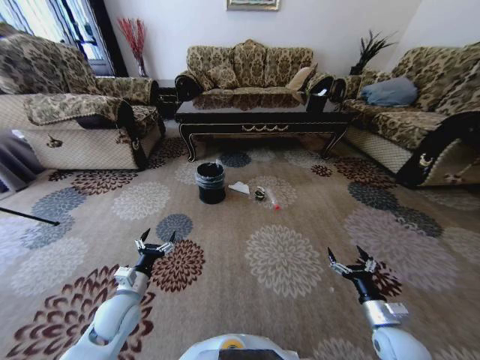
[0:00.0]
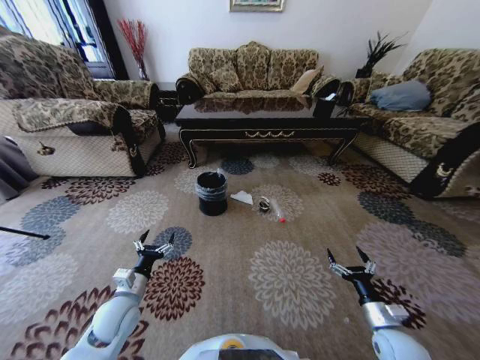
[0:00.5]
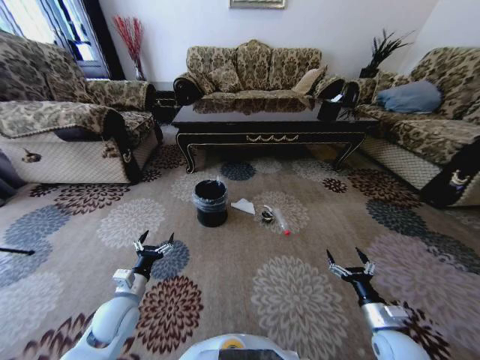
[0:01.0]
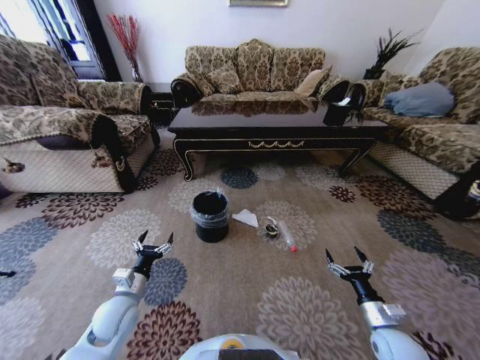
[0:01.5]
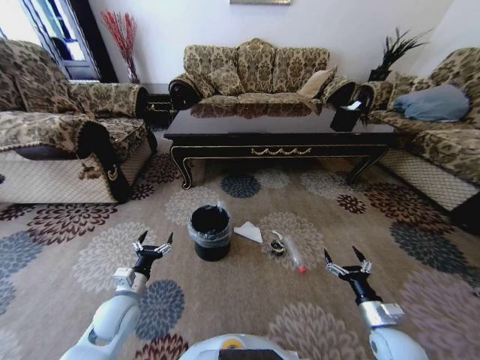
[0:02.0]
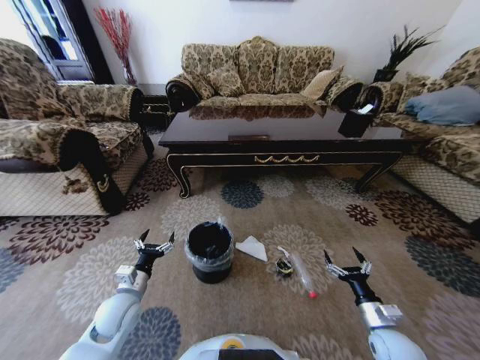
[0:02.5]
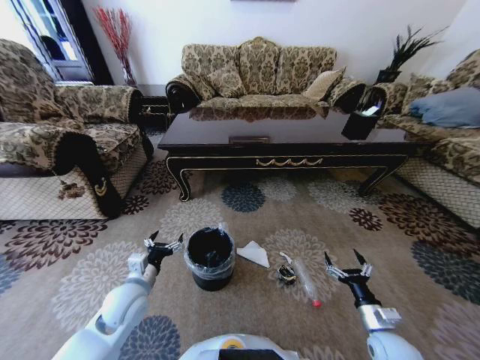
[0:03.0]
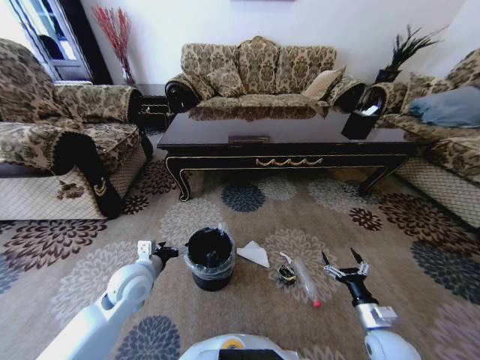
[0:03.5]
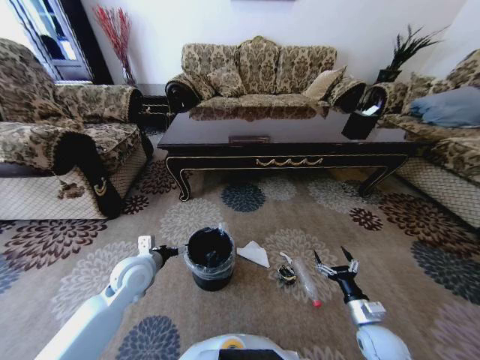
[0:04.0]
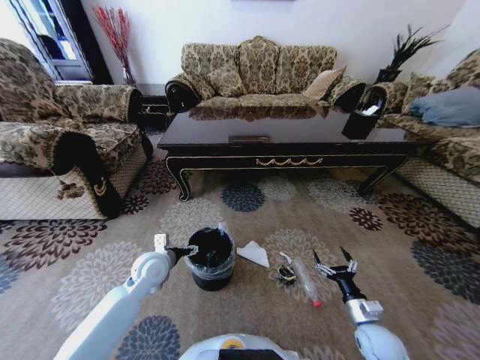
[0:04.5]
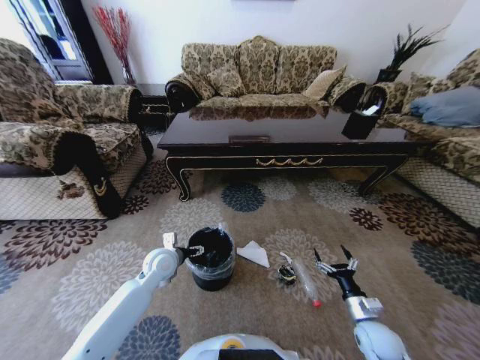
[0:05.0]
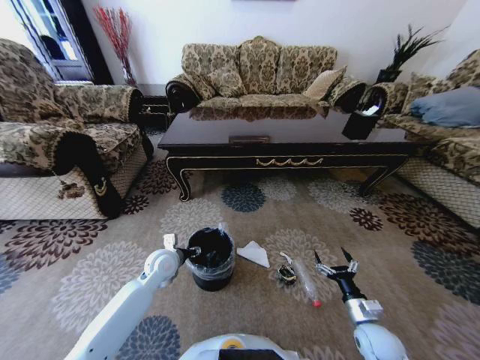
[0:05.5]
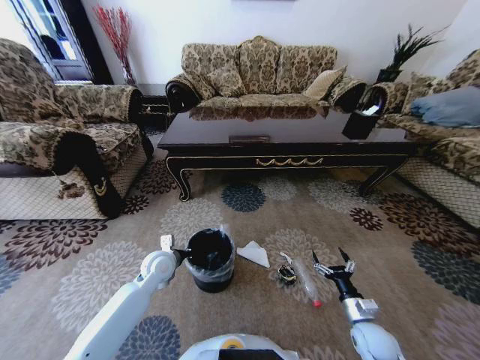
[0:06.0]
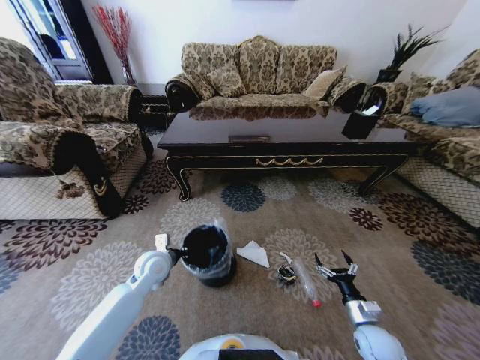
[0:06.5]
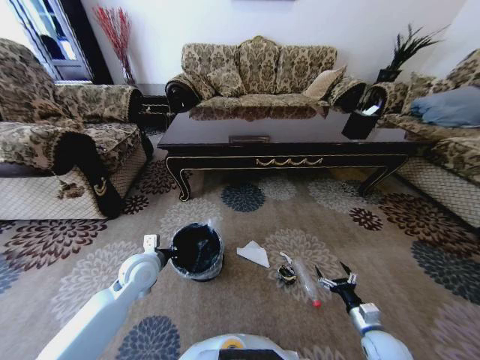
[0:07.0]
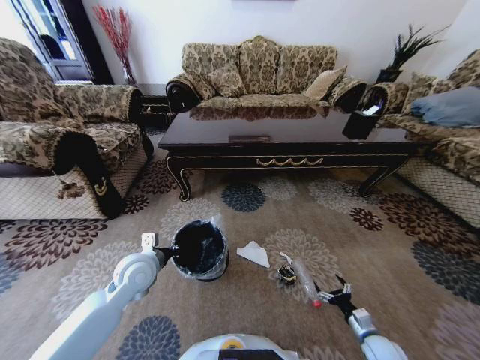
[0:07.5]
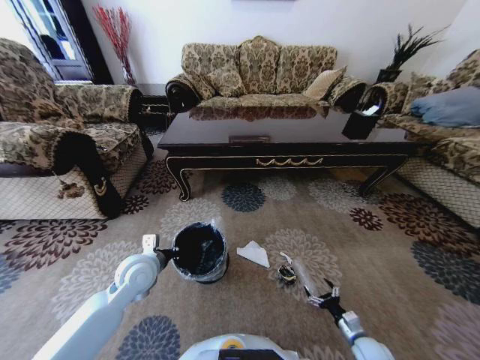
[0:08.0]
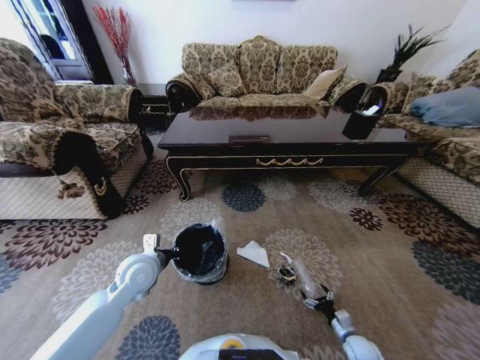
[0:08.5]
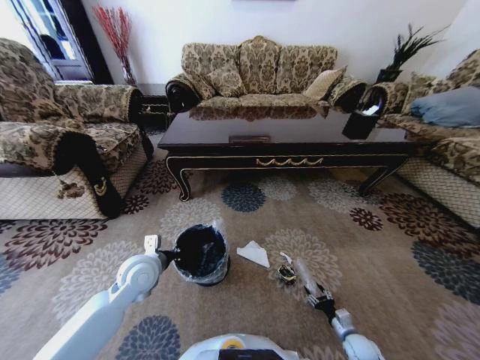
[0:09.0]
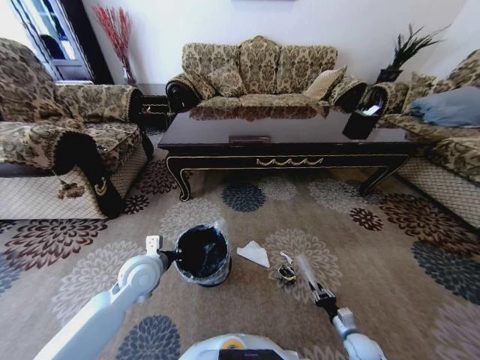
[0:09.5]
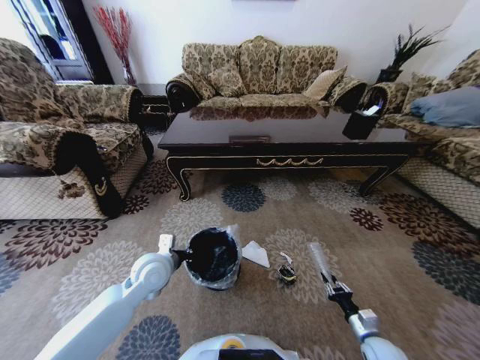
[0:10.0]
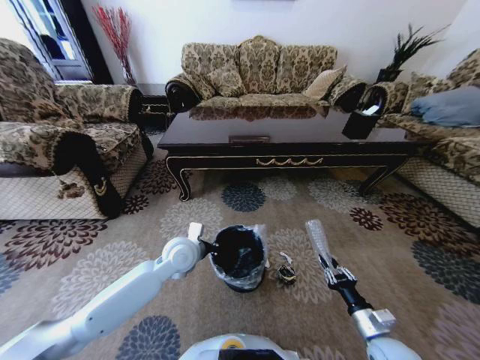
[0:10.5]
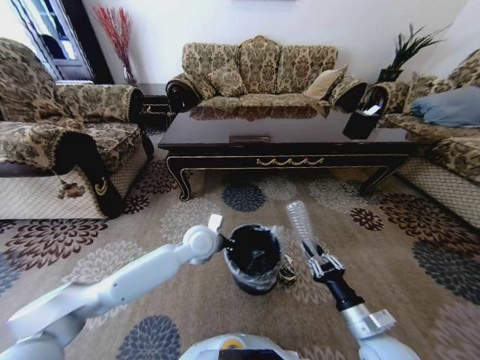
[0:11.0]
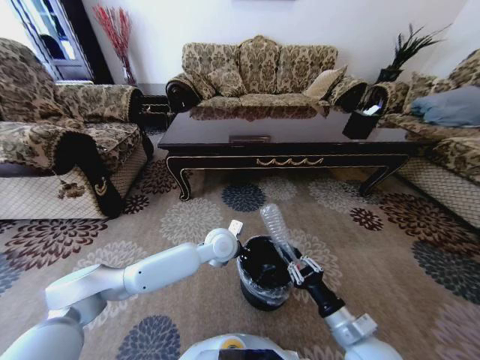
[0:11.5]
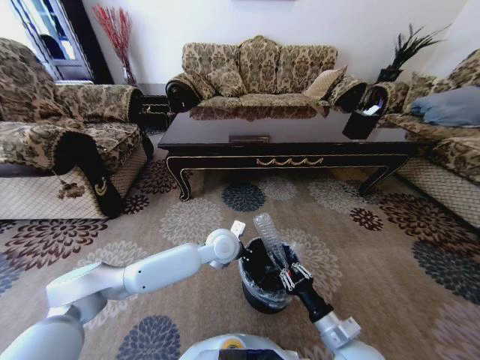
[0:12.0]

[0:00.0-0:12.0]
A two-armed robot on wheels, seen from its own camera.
Task of the whole recording: Move to the front of the table and pick up the trash from the floor, then place it into the trash bin.
0:02.0 to 0:04.0: The left gripper heads upward and forward, covering some 10 cm.
0:04.0 to 0:06.0: The left gripper travels downward by about 5 cm, and closes.
0:06.0 to 0:08.0: The right gripper moves downward, approximately 10 cm. The left gripper travels upward by about 5 cm.
0:08.0 to 0:10.0: The right gripper closes up.
0:10.0 to 0:12.0: The left gripper heads to the right, covering roughly 20 cm, while the right gripper moves to the left and upward, some 20 cm.

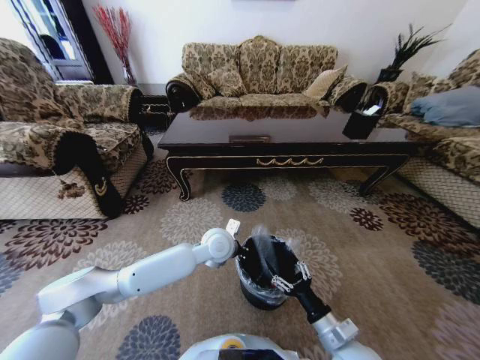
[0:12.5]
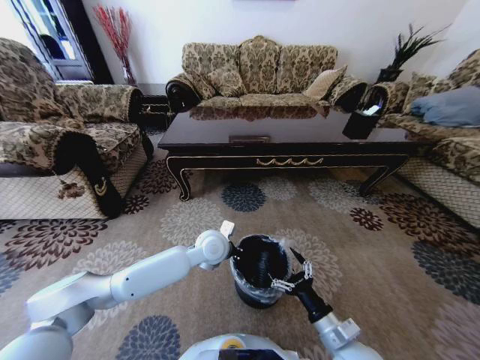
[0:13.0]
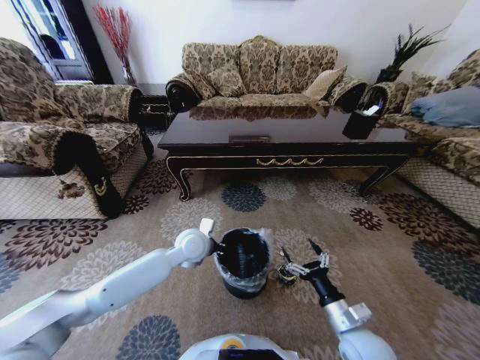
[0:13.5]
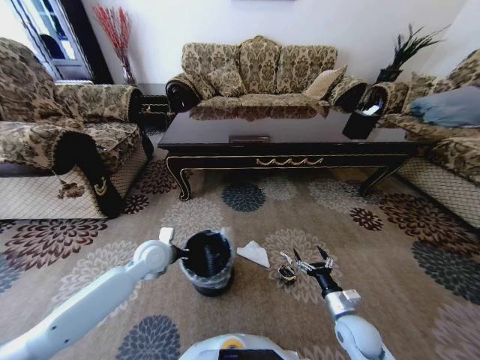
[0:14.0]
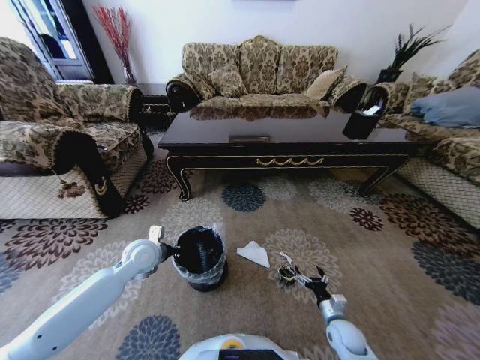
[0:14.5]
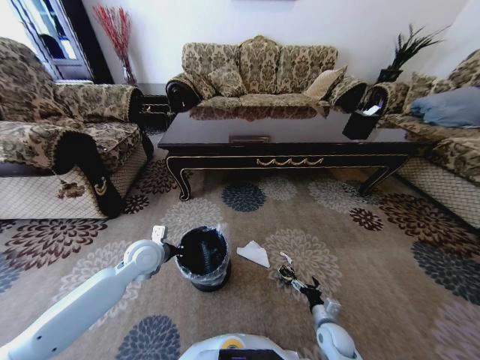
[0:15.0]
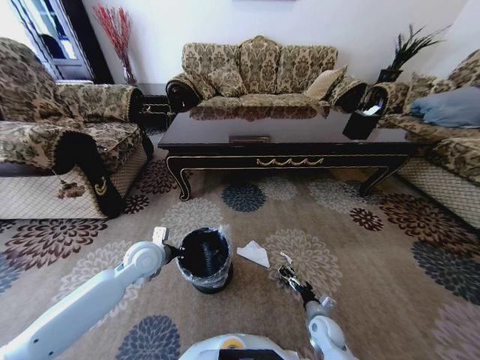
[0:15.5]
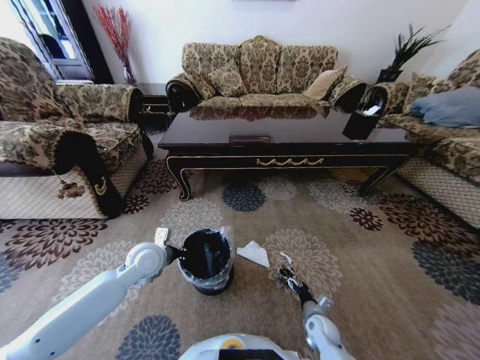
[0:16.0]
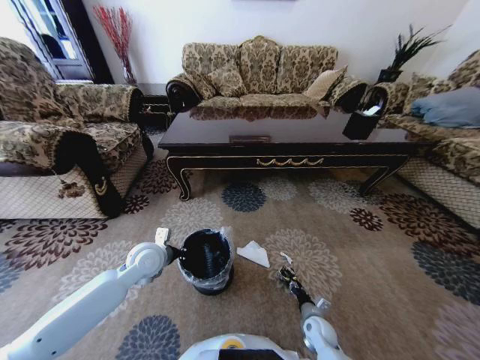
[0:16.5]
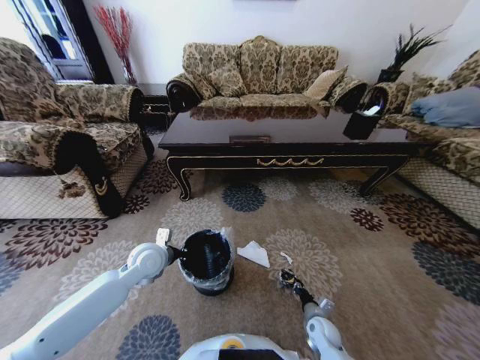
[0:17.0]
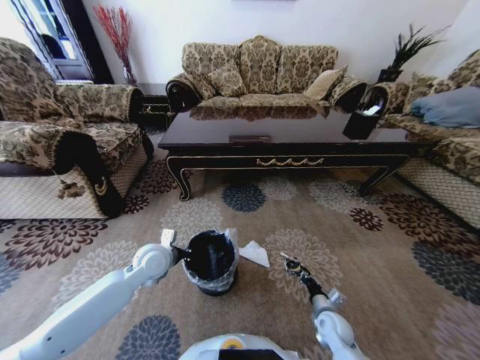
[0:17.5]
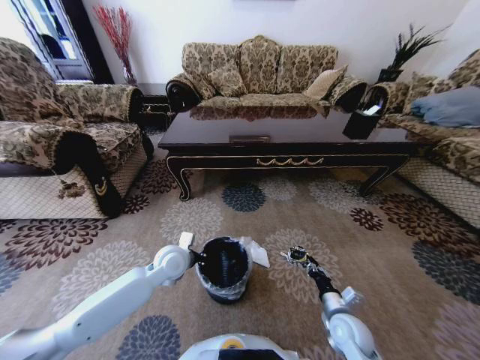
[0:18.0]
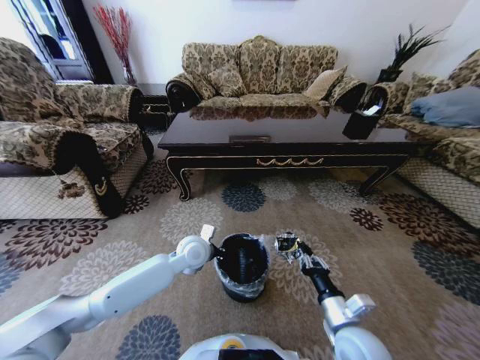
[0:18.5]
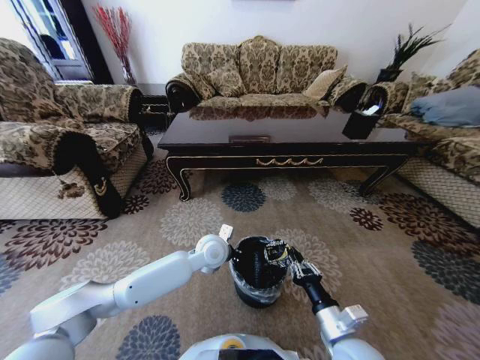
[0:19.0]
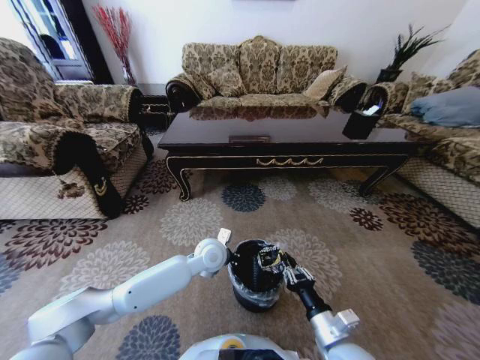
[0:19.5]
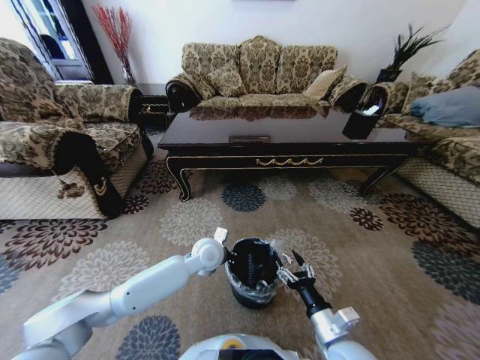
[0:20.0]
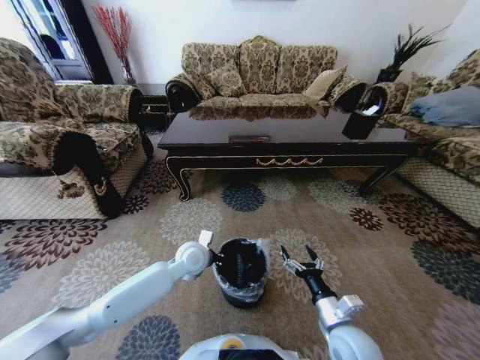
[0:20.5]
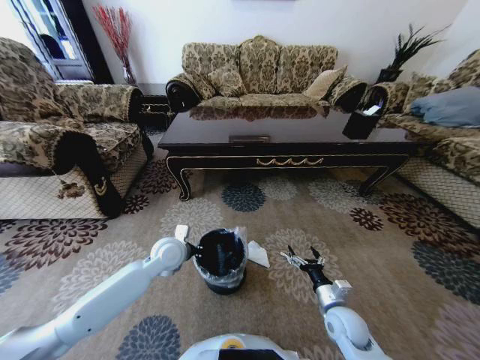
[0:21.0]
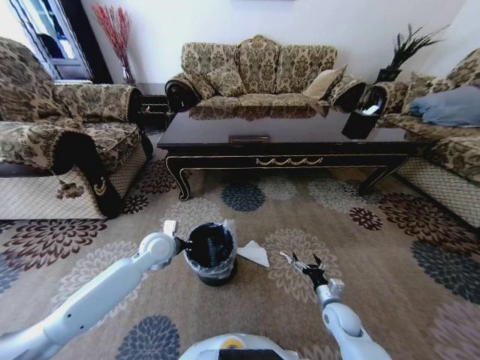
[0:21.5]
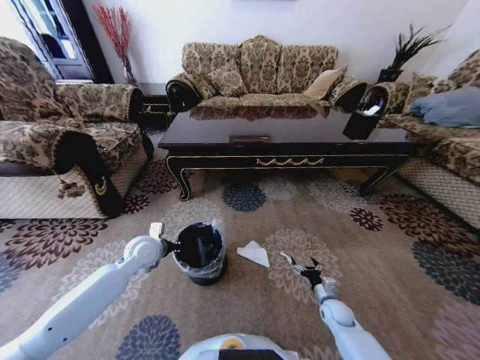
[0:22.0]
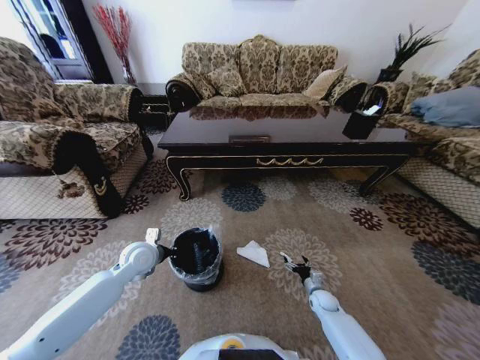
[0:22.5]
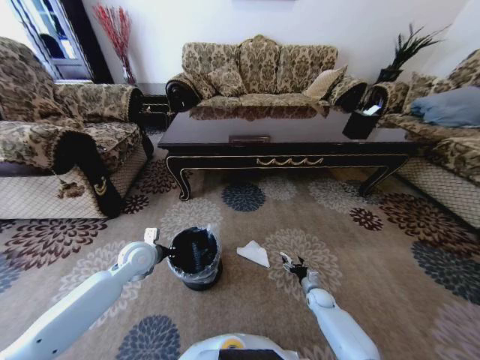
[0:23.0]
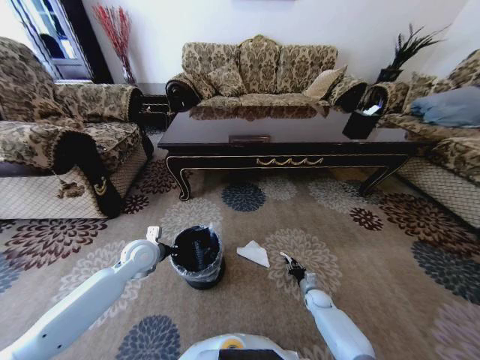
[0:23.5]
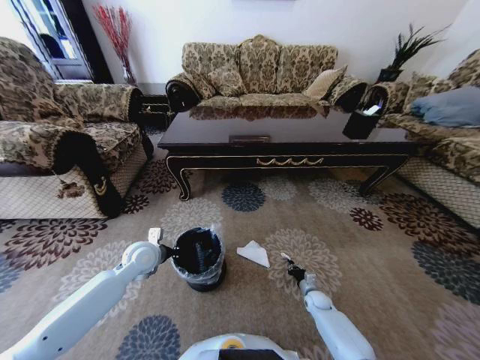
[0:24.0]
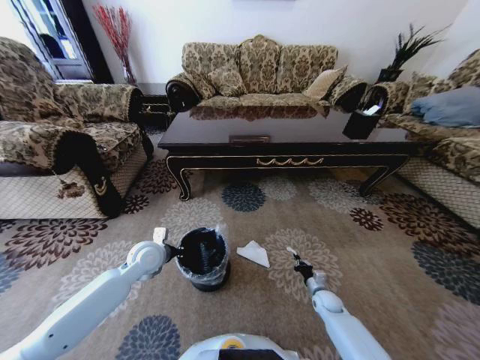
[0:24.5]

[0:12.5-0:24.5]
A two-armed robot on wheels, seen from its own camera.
Task of the whole recording: Move to the front of the table and pick up the trash from the floor, then place it into the trash bin.
0:12.5 to 0:14.5: The left gripper travels to the left by some 20 cm. The right gripper travels downward, to the right and forward by some 20 cm.
0:14.5 to 0:16.5: The right gripper is displaced to the left by some 5 cm, and closes up.
0:16.5 to 0:18.5: The right gripper heads upward, covering approximately 25 cm. Meanwhile the left gripper is displaced to the right by some 10 cm.
0:18.5 to 0:20.5: The right gripper opens its fingers.
0:20.5 to 0:22.5: The right gripper moves downward, forward and to the right, roughly 30 cm. Meanwhile the left gripper goes about 15 cm to the left.
0:22.5 to 0:24.5: The right gripper closes.

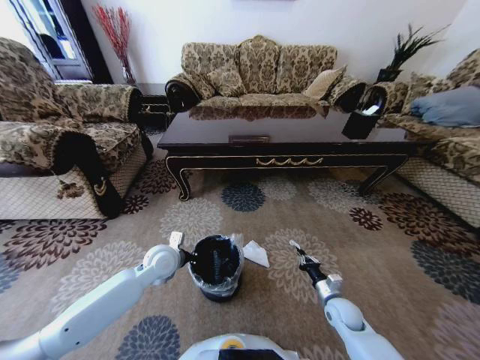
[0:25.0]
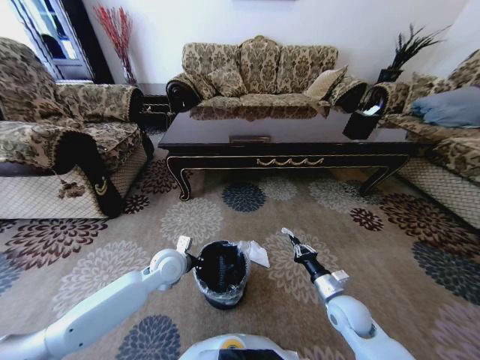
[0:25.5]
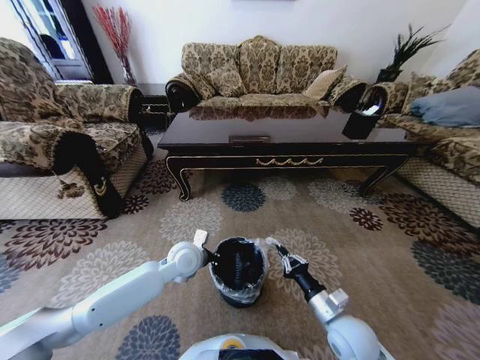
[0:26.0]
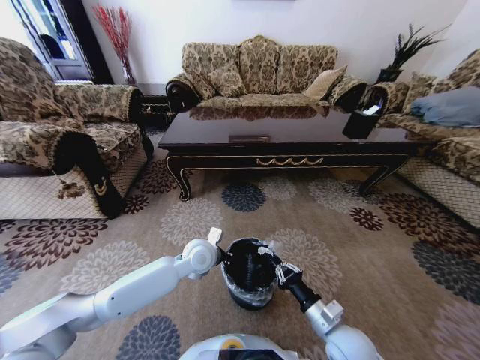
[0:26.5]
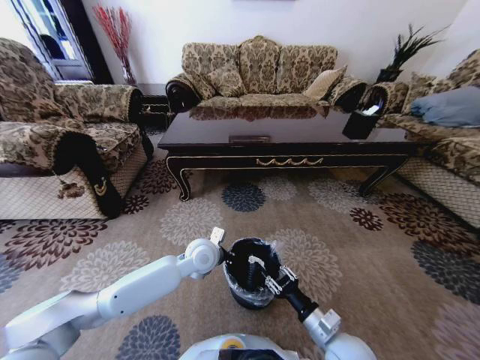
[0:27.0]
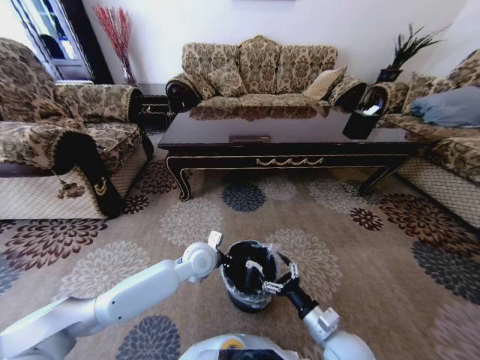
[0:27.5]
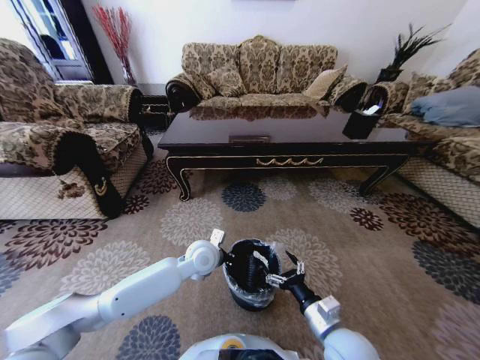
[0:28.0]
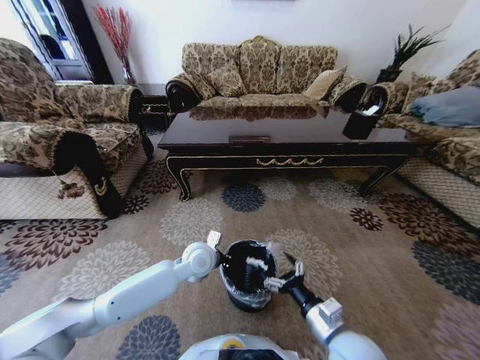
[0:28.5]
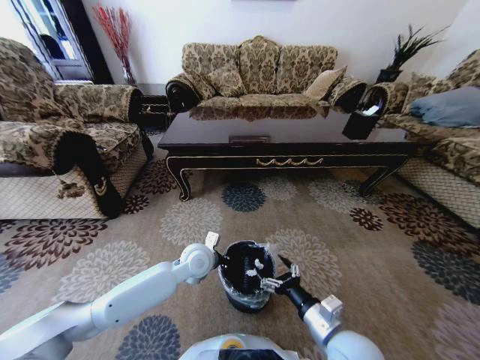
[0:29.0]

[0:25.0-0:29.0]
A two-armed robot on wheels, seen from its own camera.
Task of the whole recording: Move to the front of the table and pick up the trash from the floor, then place it into the trash bin.
0:25.0 to 0:27.0: The left gripper travels to the right by about 10 cm. The right gripper travels backward, upward and to the left by about 20 cm, and opens up.
0:27.0 to 0:29.0: The right gripper moves upward, about 5 cm, and opens its fingers.
